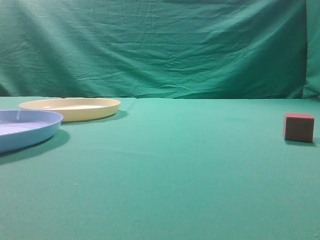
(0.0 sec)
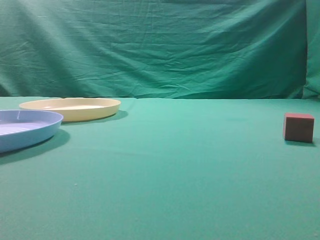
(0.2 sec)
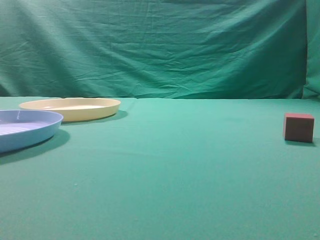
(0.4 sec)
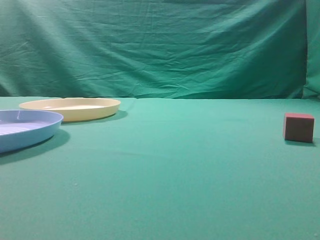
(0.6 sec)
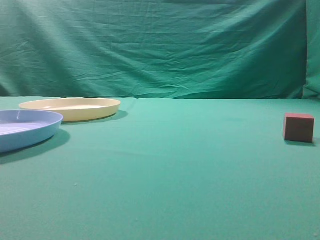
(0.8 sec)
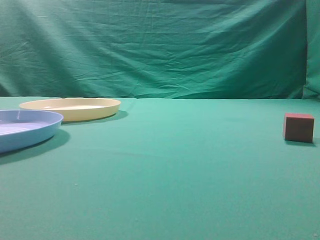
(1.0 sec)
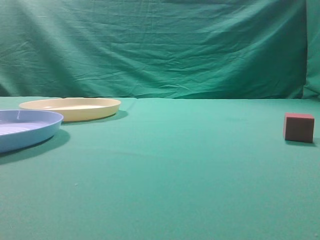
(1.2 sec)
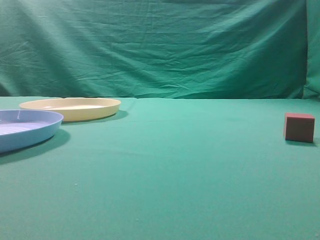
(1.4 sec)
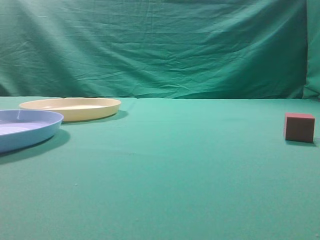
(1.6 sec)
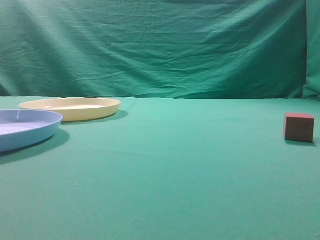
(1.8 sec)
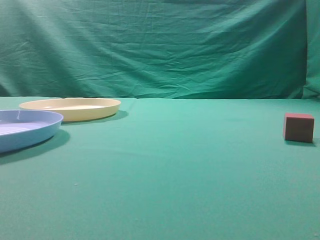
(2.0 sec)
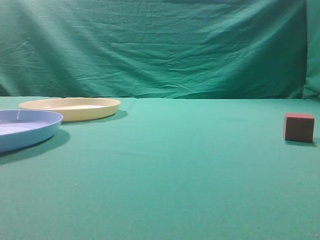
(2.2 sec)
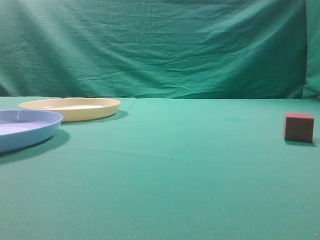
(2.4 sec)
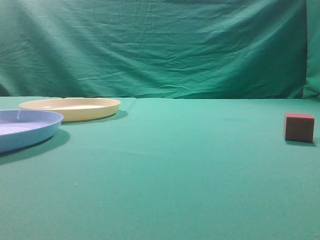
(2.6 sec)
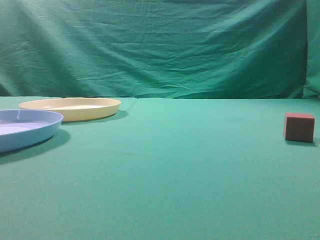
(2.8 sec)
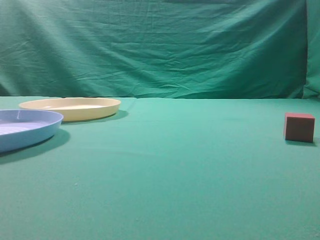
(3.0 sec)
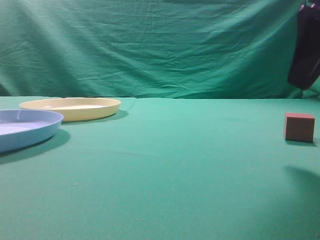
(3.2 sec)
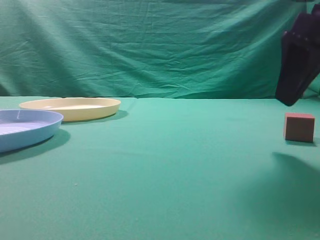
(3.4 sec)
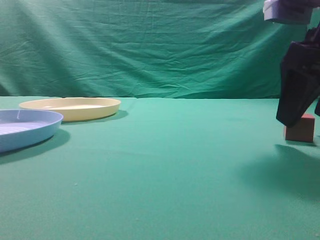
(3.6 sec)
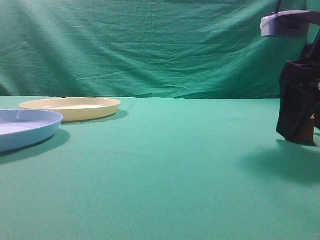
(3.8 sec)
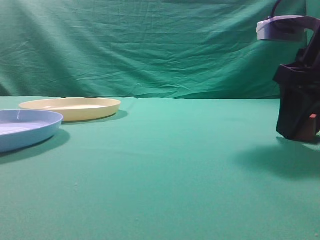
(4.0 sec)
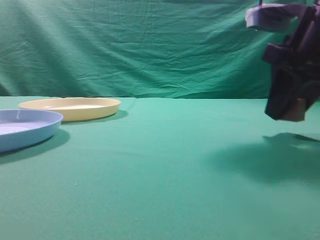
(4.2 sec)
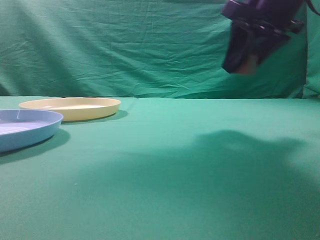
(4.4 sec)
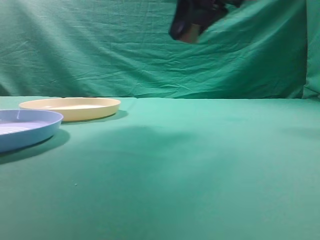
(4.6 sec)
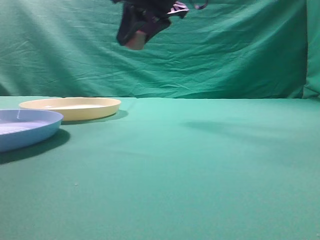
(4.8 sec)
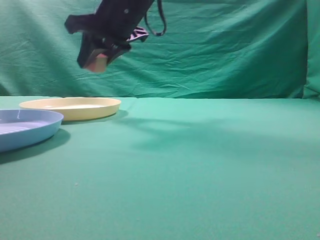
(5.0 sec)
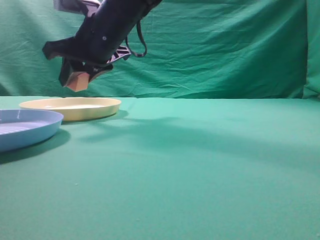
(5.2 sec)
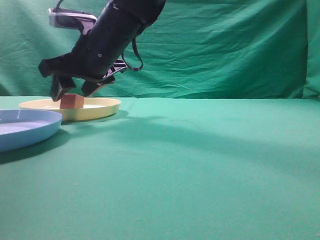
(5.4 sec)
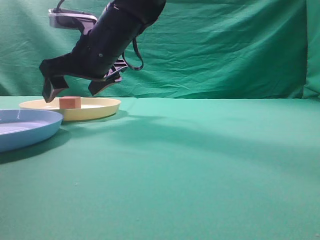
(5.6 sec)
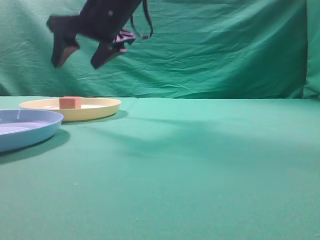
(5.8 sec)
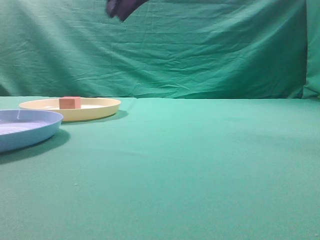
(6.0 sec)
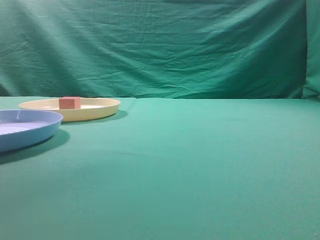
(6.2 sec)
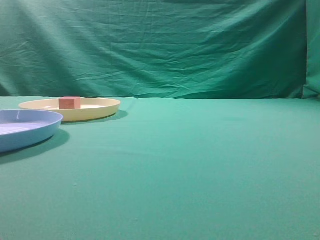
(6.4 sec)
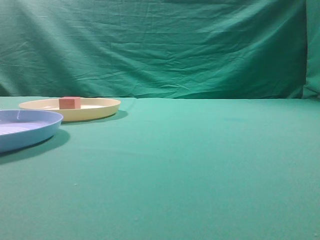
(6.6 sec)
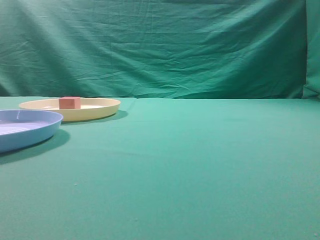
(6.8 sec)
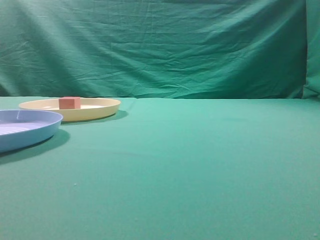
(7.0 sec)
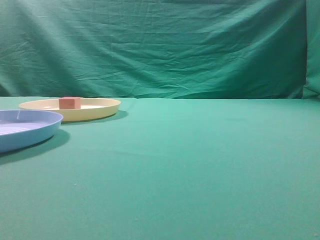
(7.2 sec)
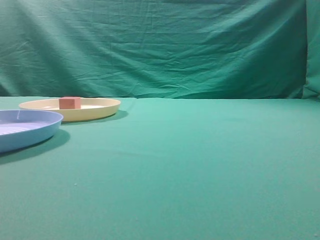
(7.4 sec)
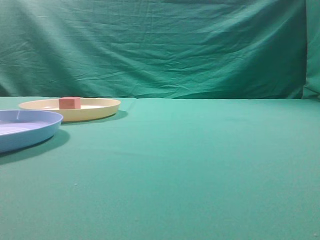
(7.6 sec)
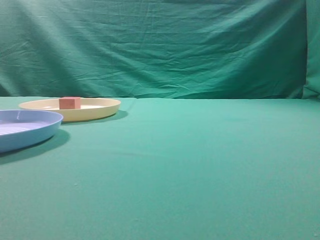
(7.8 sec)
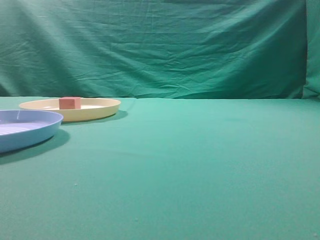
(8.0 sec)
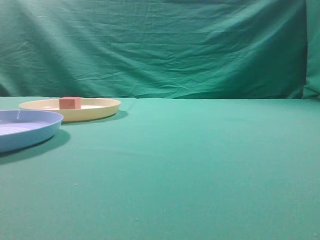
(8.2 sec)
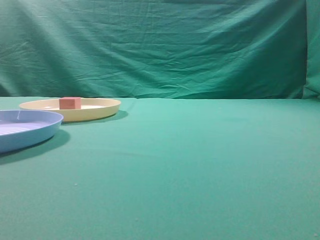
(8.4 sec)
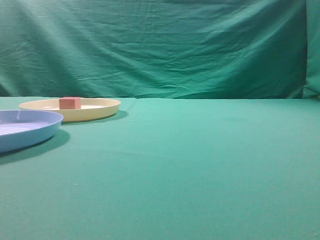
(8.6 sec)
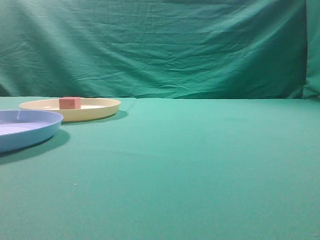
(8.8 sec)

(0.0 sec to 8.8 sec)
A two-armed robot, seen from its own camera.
Task of the whole recording: pick up the cube block from the table and put it on the plate.
Step, 0.0 sec - 4.2 sec: Grasp the small cube on the table.
Step, 4.4 sec - 5.8 sec: Place it into the yellow plate.
3.0 sec - 4.4 sec: The right gripper goes roughly 15 cm forward and to the left, and opens, then closes again.
4.4 sec - 5.8 sec: The right gripper shifts some 20 cm to the left, and opens up.
5.8 sec - 7.4 sec: The right gripper travels to the right and backward by approximately 40 cm, and closes its fingers.
